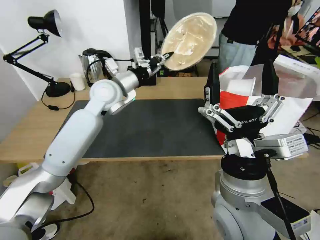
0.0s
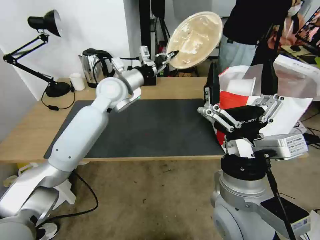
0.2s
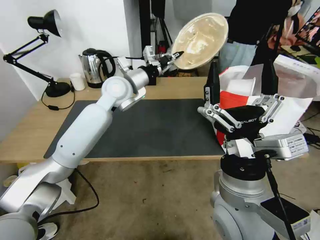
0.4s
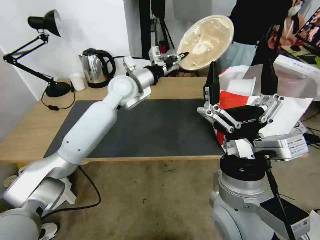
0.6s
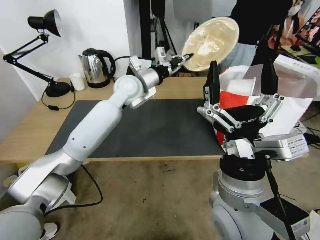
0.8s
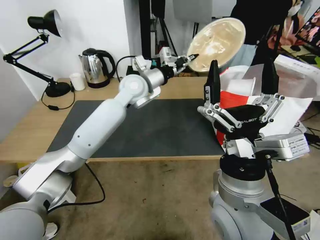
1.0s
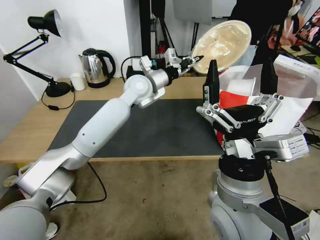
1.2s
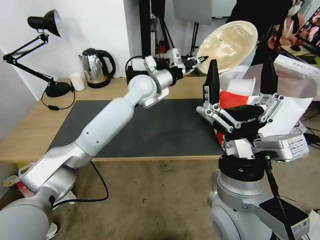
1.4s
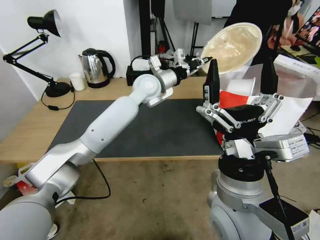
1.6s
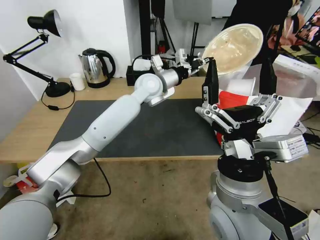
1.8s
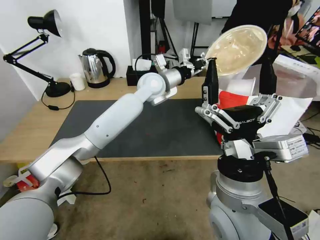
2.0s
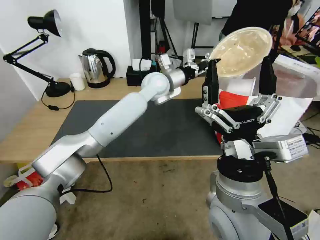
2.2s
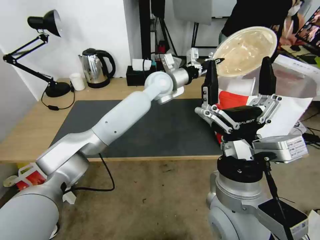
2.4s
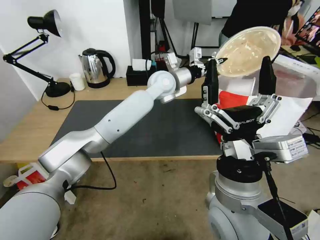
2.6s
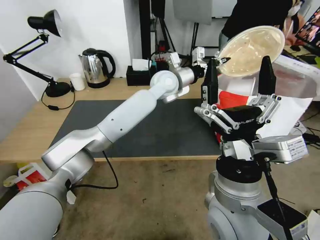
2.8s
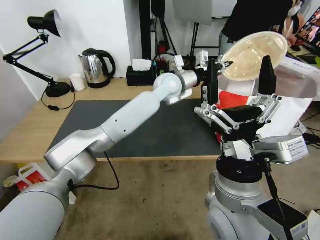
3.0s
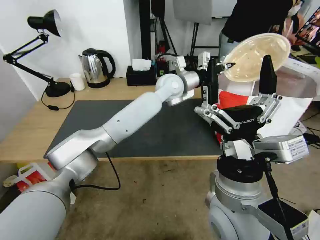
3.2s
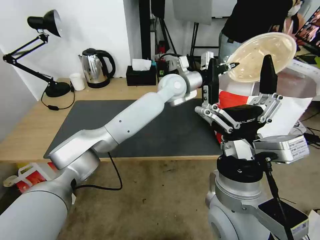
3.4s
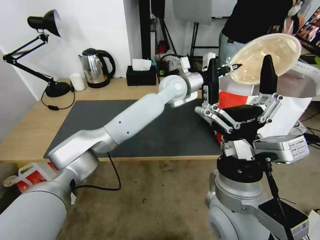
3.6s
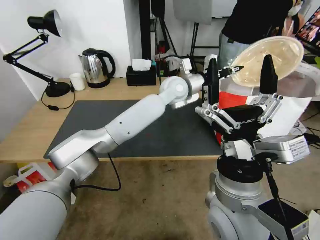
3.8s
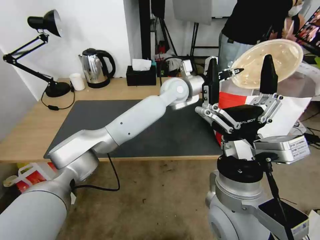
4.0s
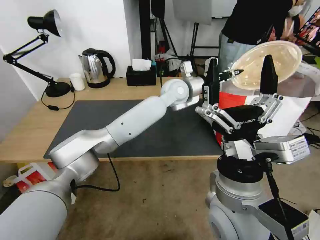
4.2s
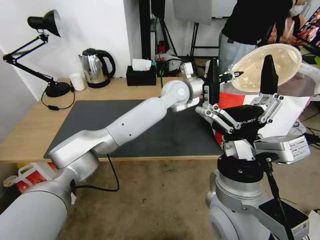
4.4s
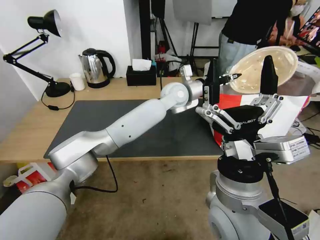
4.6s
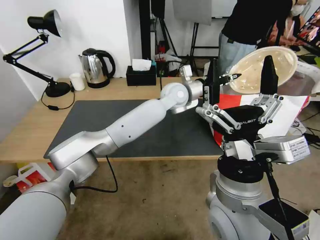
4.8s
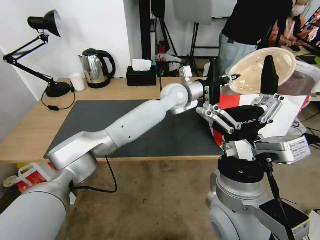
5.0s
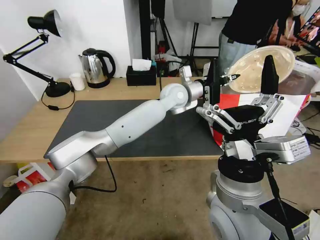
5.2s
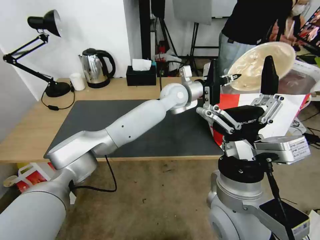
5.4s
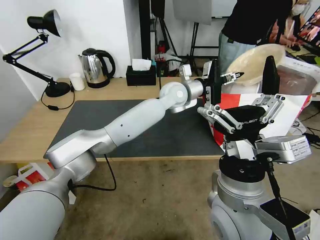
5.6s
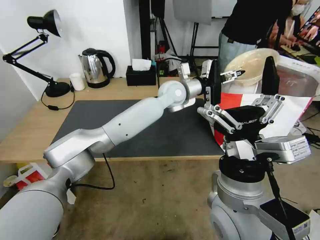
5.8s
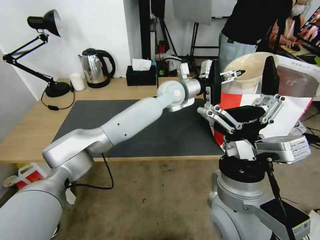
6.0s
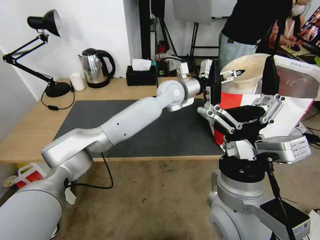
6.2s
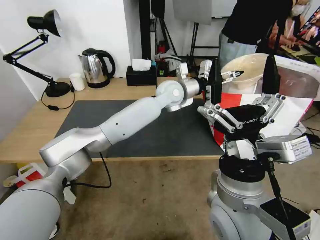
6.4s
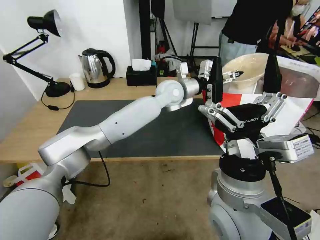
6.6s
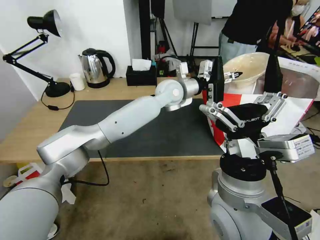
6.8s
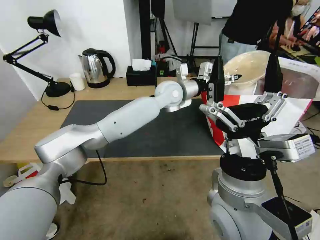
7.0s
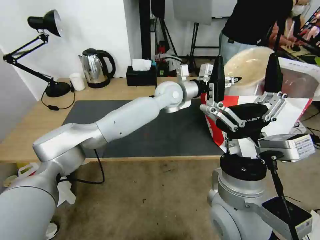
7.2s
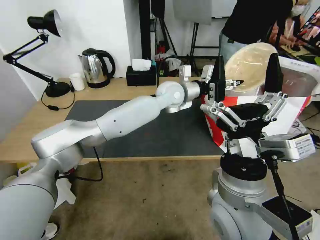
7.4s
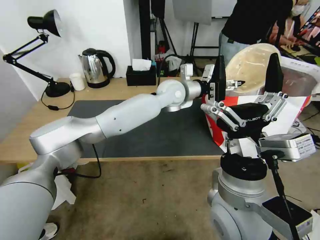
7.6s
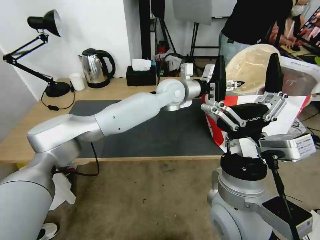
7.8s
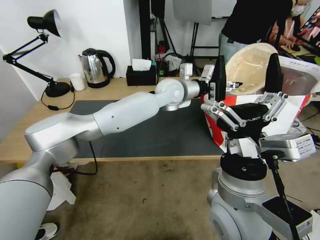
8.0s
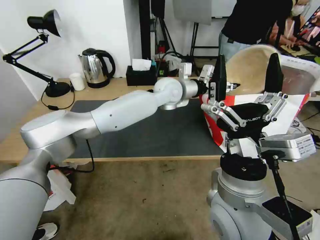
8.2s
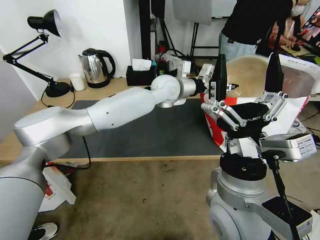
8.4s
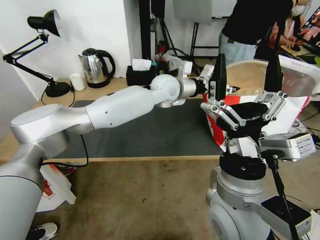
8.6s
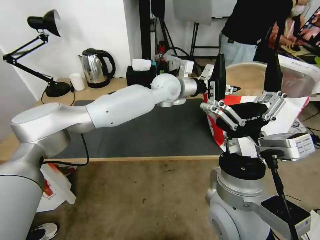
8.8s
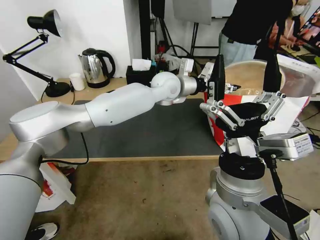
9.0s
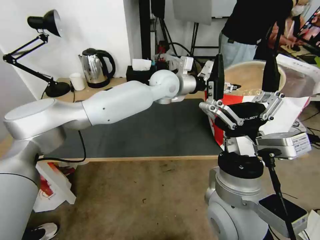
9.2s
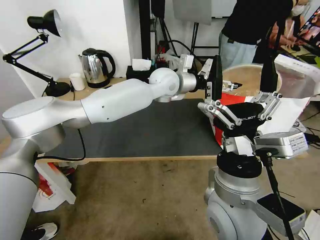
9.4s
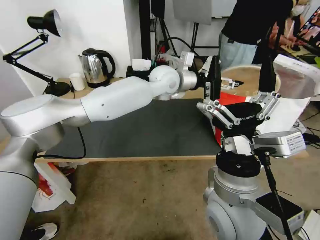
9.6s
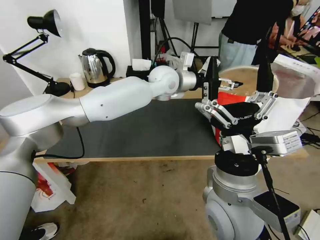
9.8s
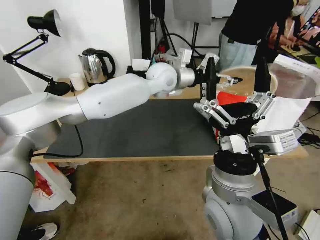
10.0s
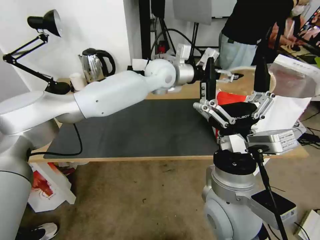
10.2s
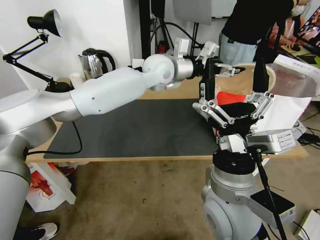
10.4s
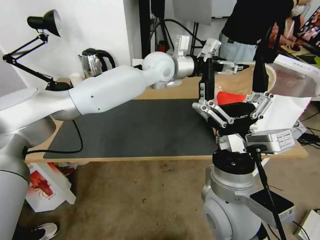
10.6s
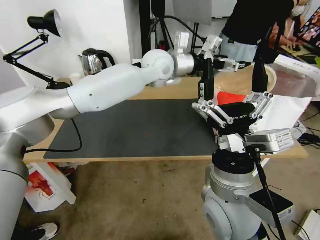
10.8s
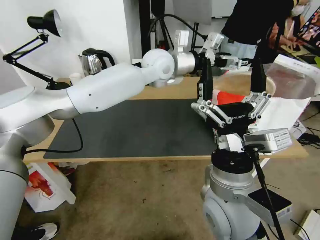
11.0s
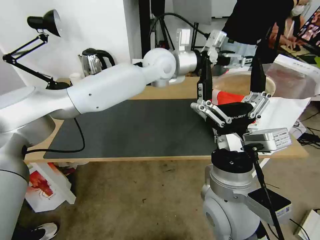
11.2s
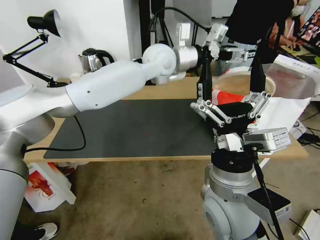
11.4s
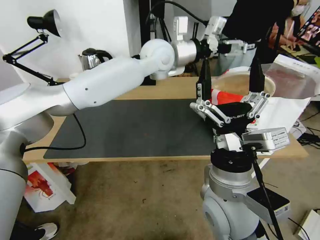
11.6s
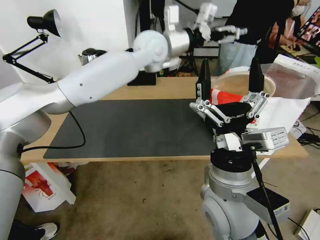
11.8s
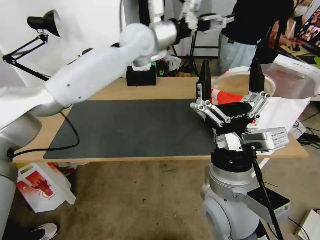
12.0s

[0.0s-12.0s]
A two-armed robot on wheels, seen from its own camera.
Task of the whole recording: Pick up the trash from the table and place it into the takeout bag.
0.0s to 1.6s: The left gripper shifts some 10 cm to the right.
1.6s to 3.0s: The left gripper travels to the right by some 5 cm.
3.0s to 4.4s: The grippers move only a little.
4.4s to 6.0s: The left gripper opens up.
9.0s to 10.4s: The left gripper moves about 5 cm.
10.4s to 12.0s: The left gripper goes some 10 cm upward and to the left.

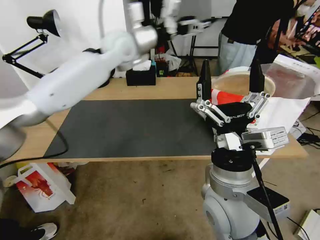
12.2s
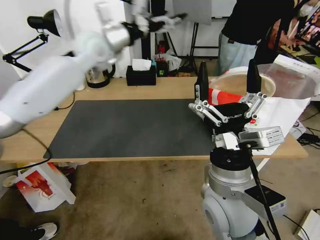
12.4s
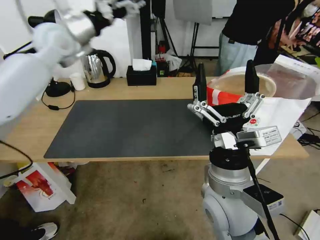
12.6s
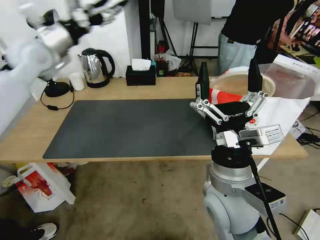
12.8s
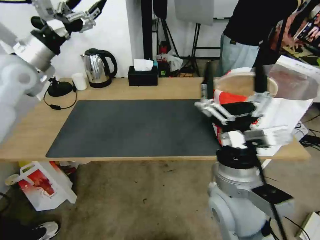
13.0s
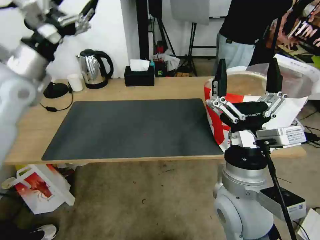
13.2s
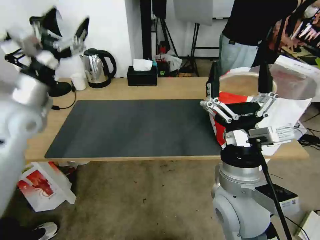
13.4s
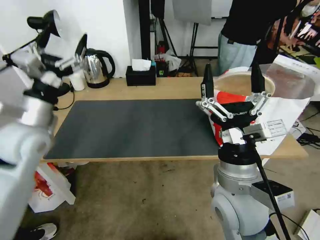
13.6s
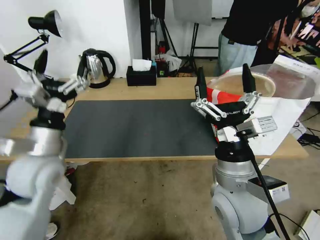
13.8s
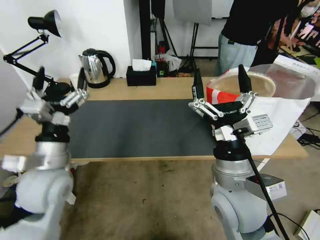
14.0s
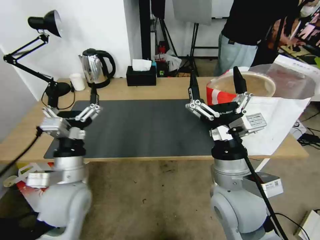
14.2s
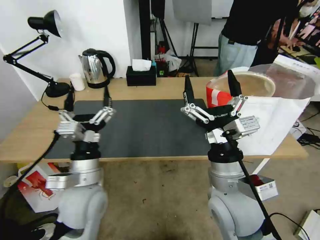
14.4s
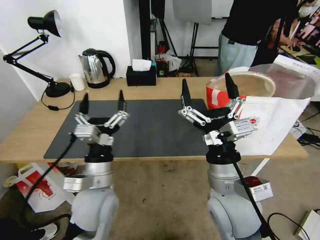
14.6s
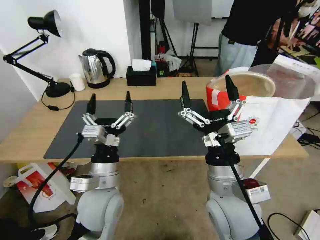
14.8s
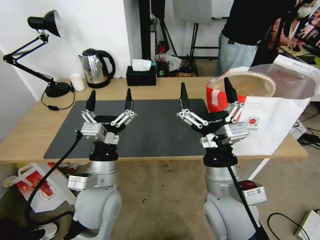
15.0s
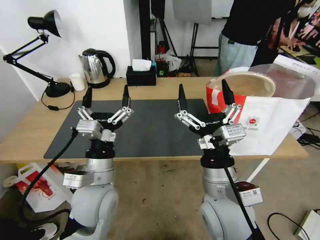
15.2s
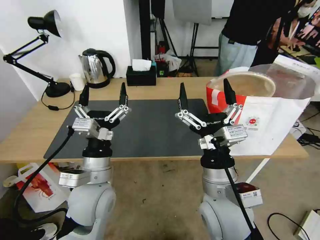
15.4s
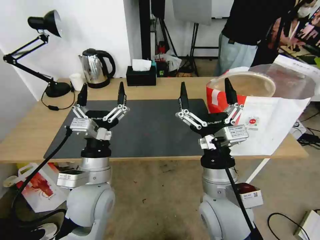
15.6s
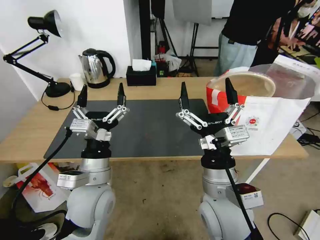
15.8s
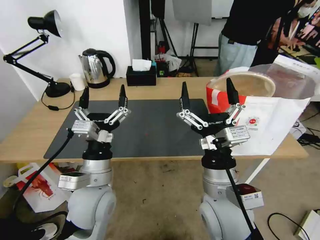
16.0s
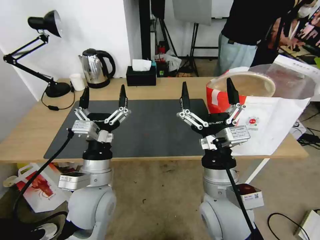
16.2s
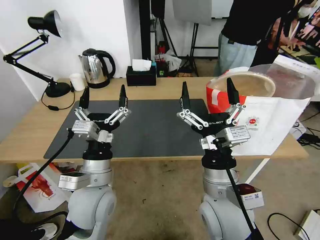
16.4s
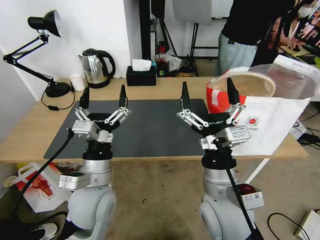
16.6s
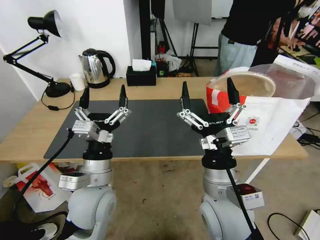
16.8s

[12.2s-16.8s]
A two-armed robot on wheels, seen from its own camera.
Task of the whole recording: Pick up the trash from the table and place it into the takeout bag.
12.2s to 13.8s: The left gripper is displaced backward, downward and to the left by about 35 cm.
13.8s to 15.2s: The left gripper heads to the right and downward, covering about 15 cm.
15.2s to 16.8s: Neither gripper changes place.

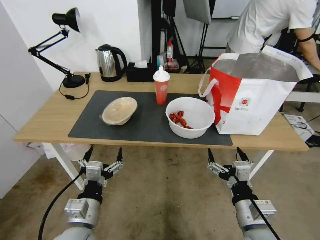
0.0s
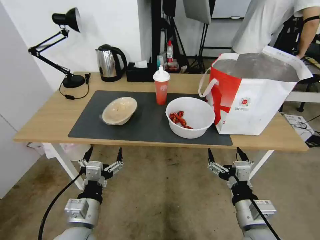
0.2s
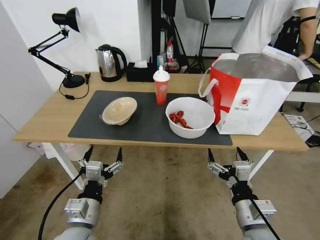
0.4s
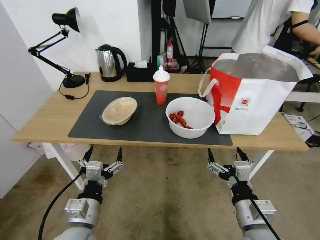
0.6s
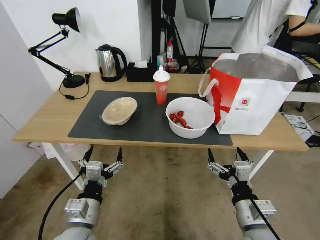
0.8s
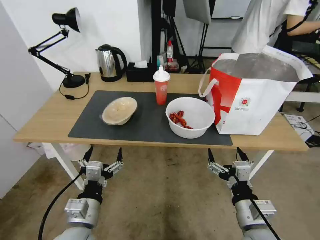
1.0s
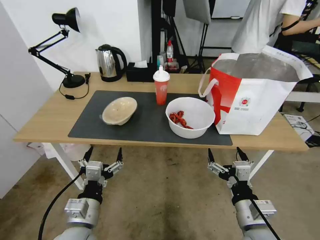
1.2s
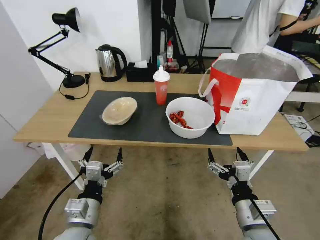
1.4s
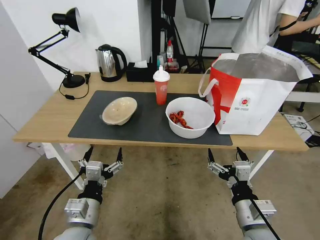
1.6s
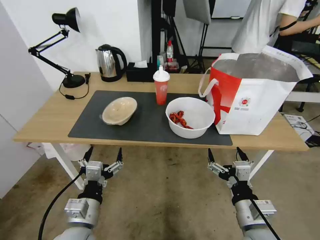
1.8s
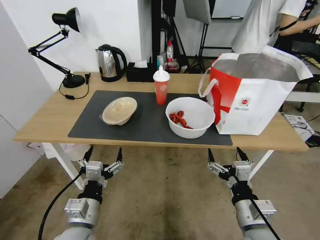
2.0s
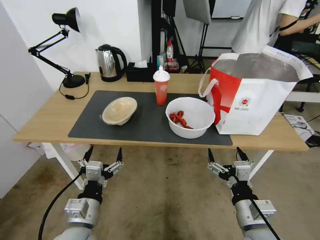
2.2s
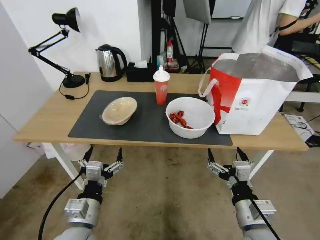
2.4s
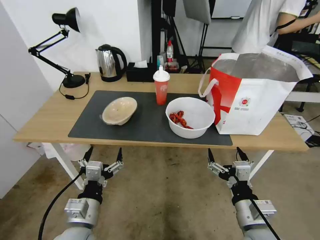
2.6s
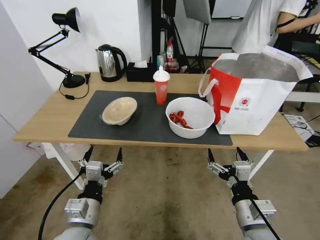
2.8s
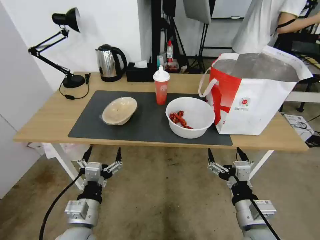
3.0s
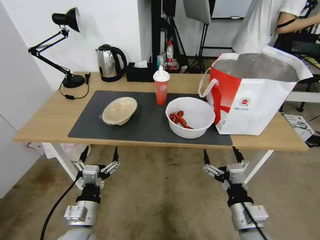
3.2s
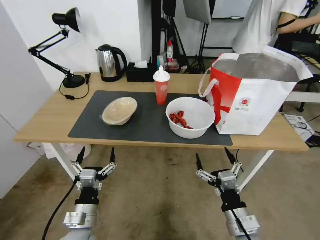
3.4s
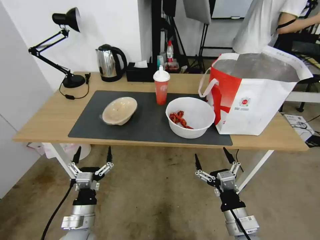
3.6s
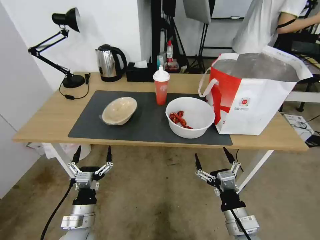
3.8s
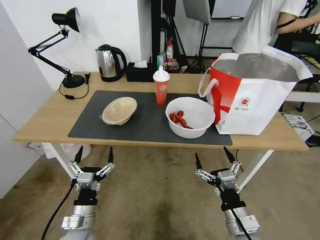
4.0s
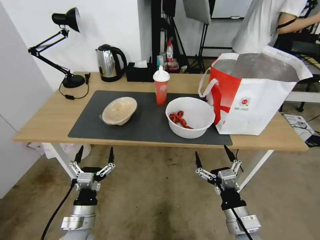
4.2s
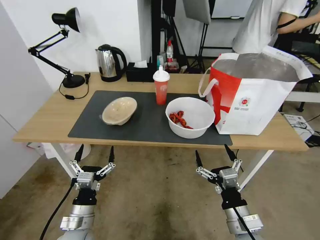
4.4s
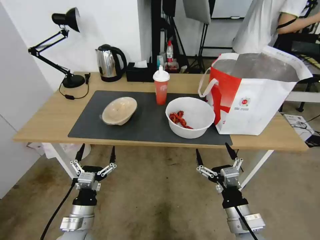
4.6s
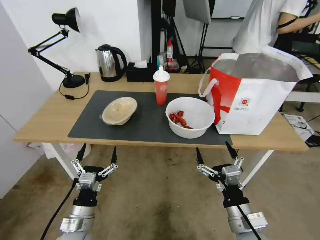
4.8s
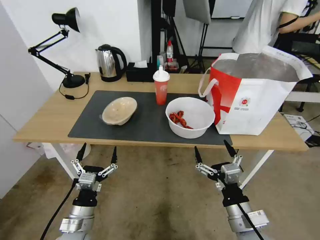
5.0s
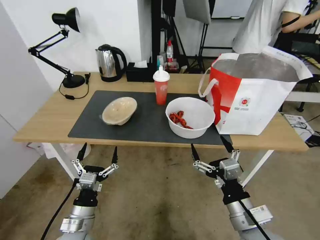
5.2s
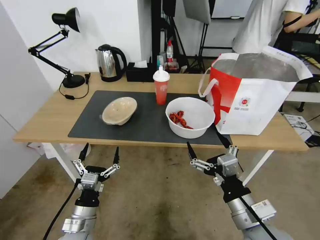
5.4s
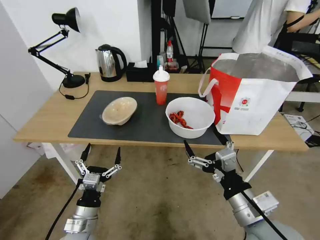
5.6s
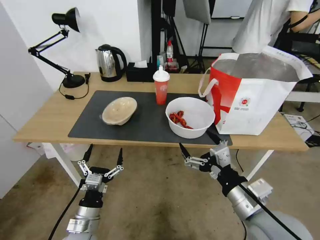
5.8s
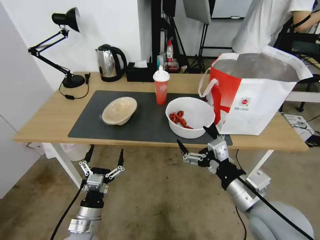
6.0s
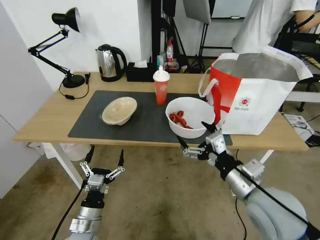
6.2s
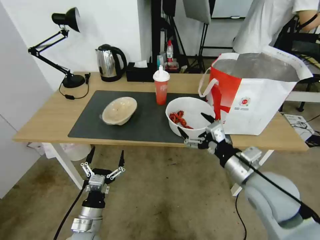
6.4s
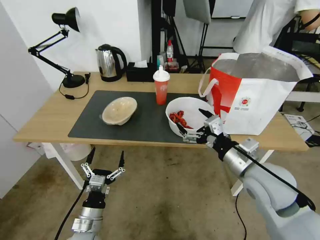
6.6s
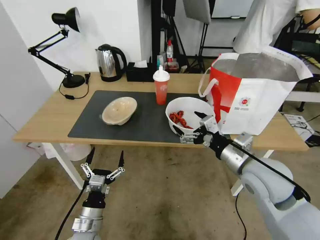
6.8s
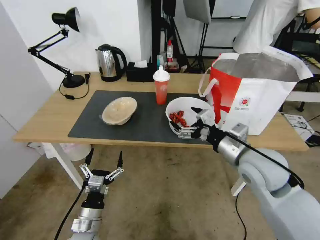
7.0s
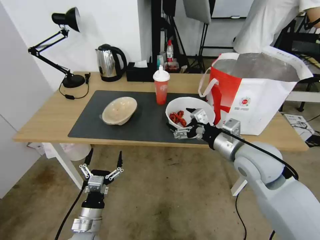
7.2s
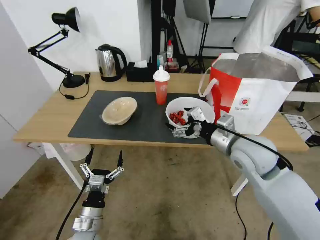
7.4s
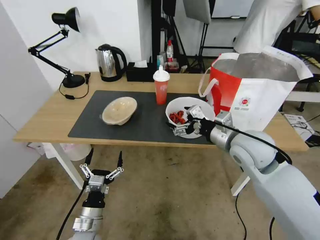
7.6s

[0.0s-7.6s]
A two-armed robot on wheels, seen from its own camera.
Task of the whole recording: Pick up the trash from the table and place it into the takeout bag.
1.6s to 3.0s: Both grippers stay about where they are.
3.0s to 4.6s: The left gripper goes about 5 cm downward.
4.6s to 6.0s: The right gripper heads upward, covering roughly 15 cm.
6.0s to 7.6s: The right gripper goes about 15 cm forward.
